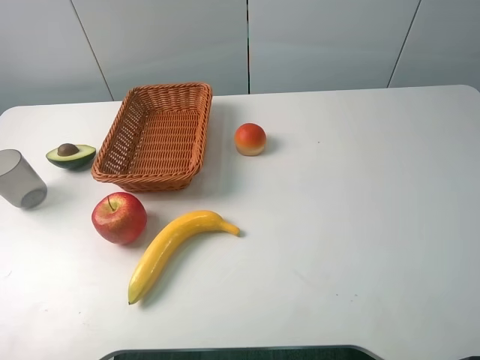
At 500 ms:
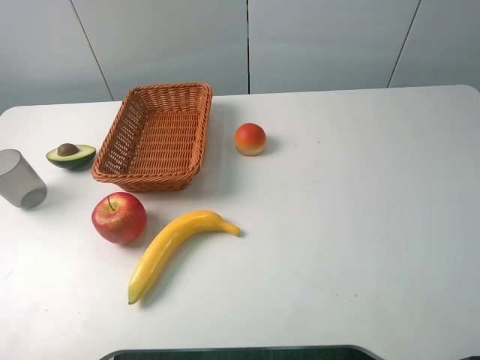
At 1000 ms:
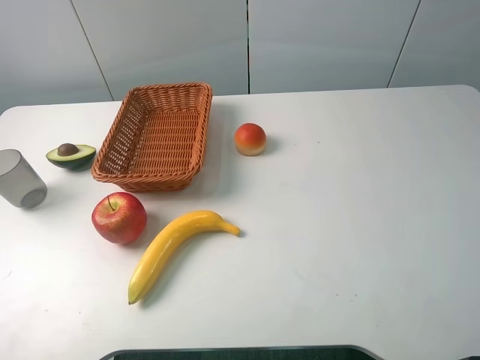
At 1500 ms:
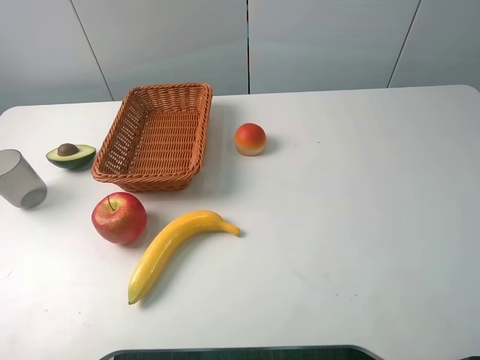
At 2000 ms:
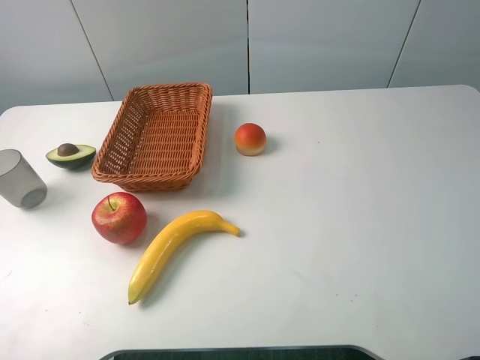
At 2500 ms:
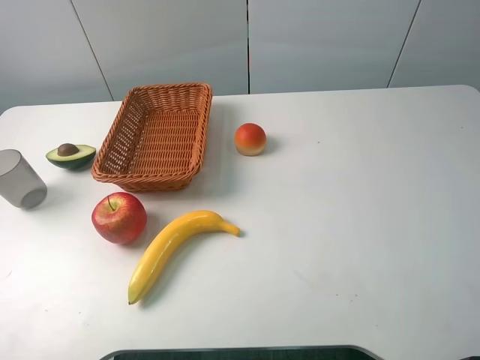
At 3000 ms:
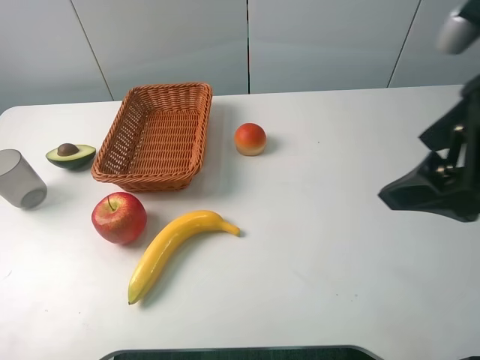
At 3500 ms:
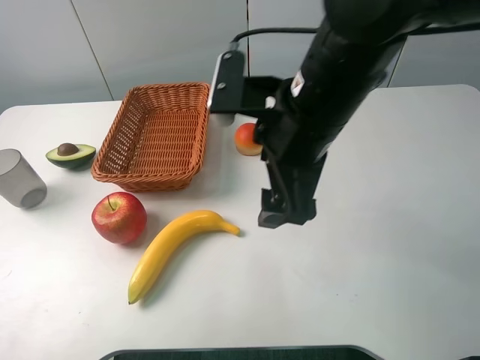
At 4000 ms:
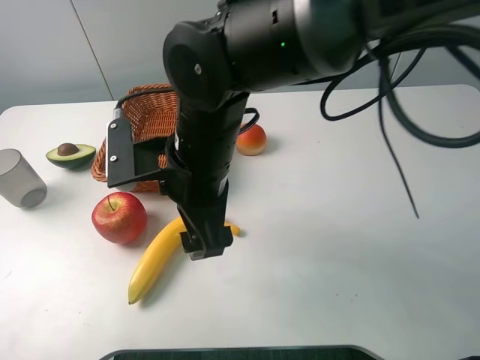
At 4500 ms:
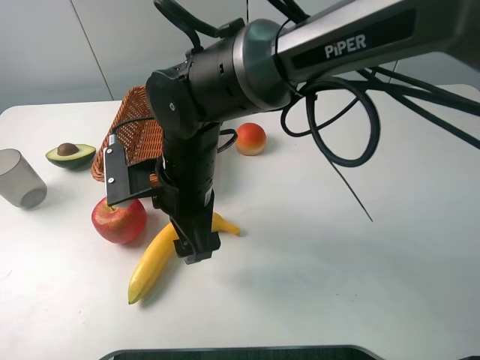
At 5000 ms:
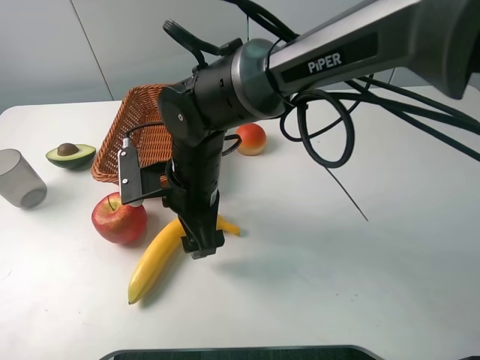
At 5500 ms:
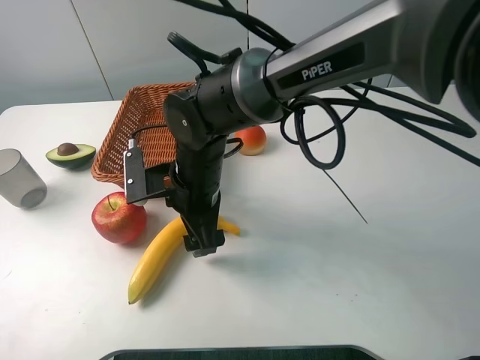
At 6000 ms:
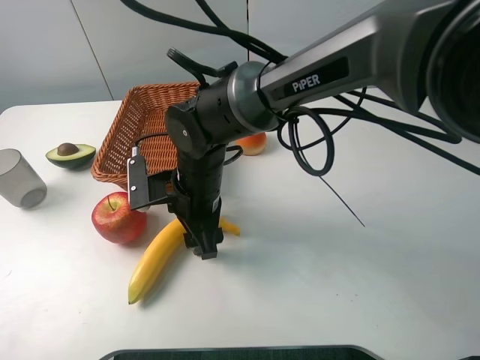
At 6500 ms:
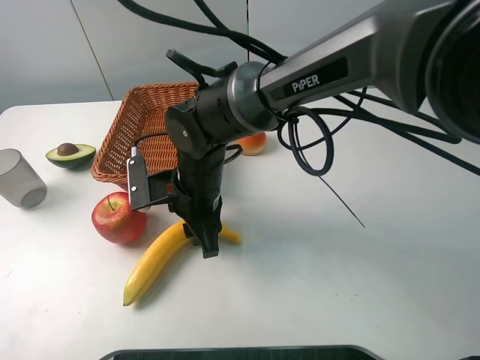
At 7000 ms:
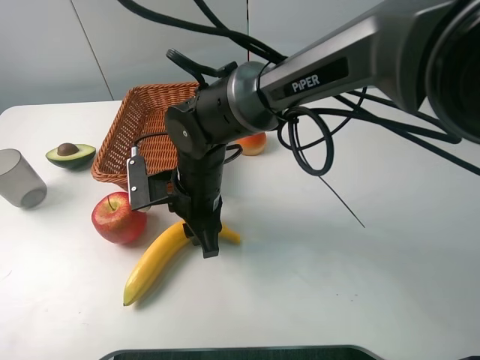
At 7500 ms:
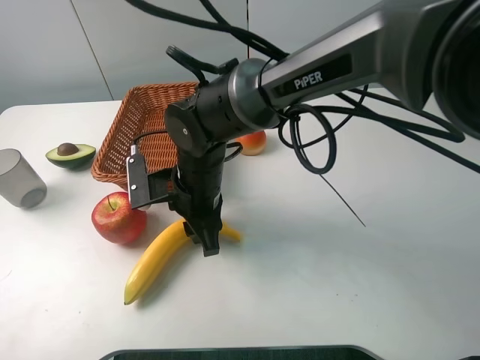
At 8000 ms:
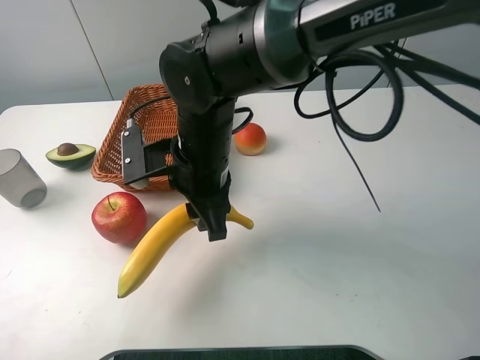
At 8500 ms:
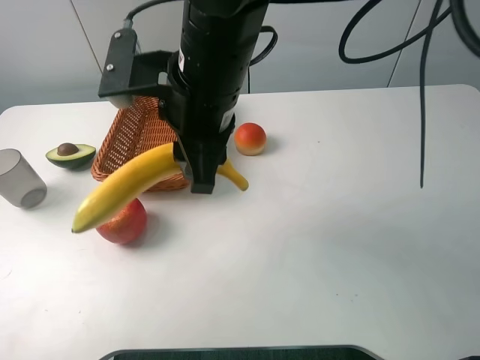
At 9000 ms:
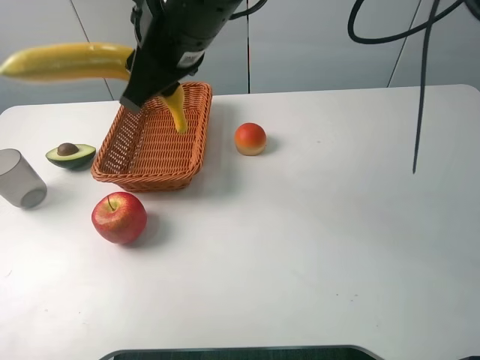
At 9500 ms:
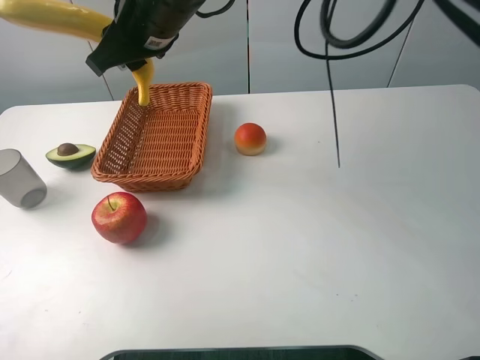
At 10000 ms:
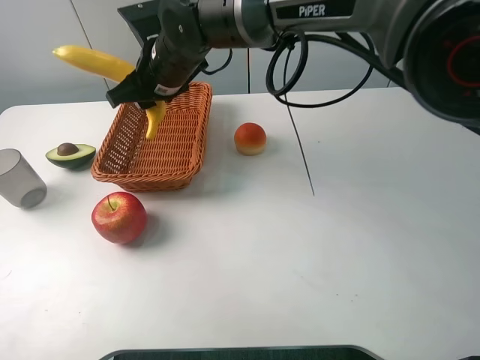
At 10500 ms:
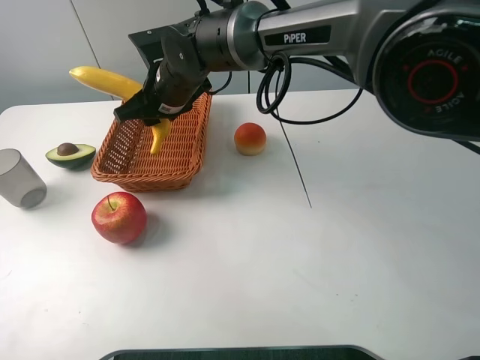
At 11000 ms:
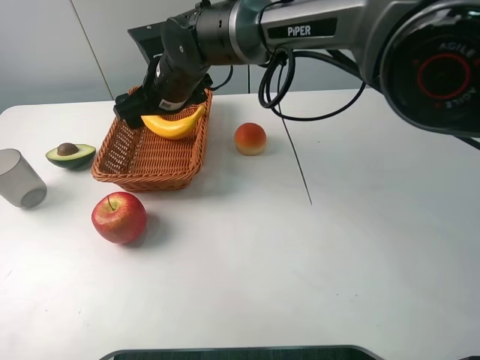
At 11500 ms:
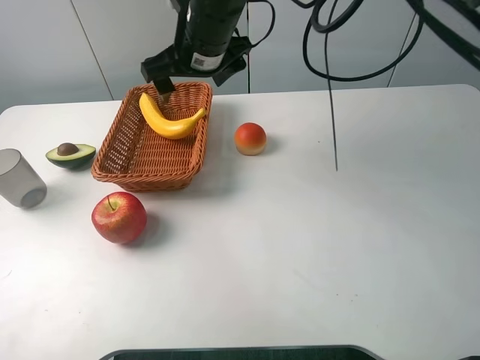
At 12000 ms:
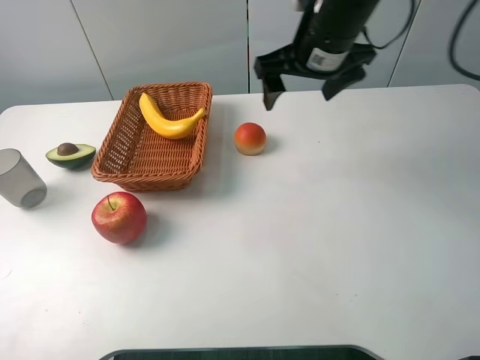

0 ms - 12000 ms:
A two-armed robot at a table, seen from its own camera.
0 ms - 2000 ms: Both grippers stay about where they are.
2000 ms - 4000 ms: The right gripper is displaced to the left and forward by approximately 40 cm.
4000 ms - 6000 ms: The right gripper goes roughly 10 cm downward, and closes up.
6000 ms - 8000 ms: The right gripper moves upward, about 5 cm.
8000 ms - 10000 ms: The right gripper heads forward, covering roughly 15 cm.
10000 ms - 12000 ms: The right gripper goes approximately 20 cm to the right, and opens up.

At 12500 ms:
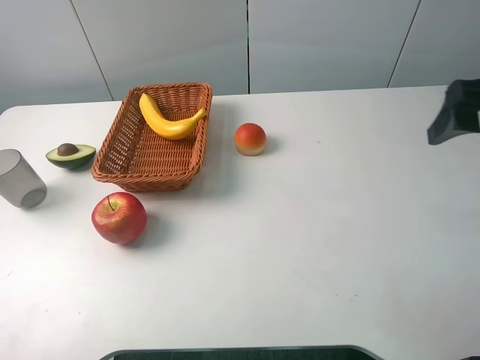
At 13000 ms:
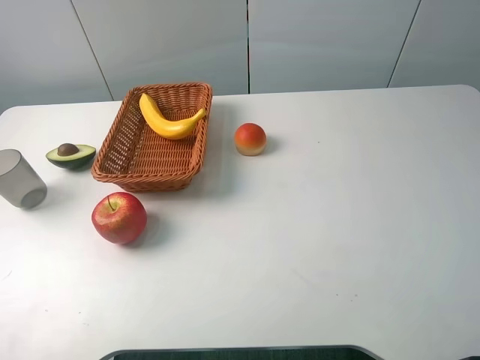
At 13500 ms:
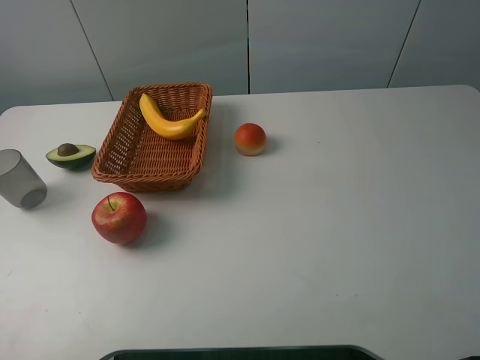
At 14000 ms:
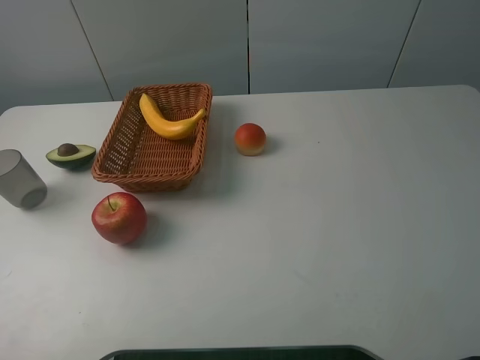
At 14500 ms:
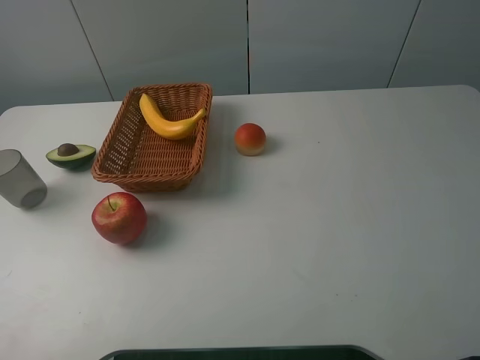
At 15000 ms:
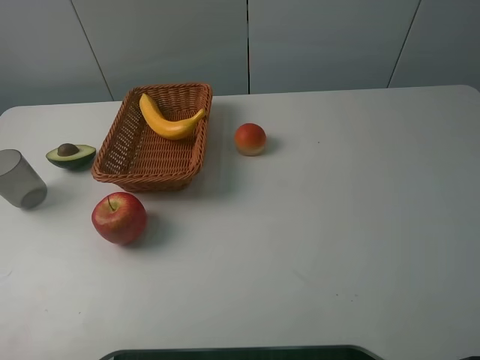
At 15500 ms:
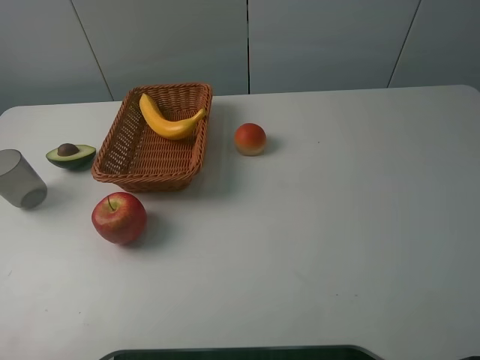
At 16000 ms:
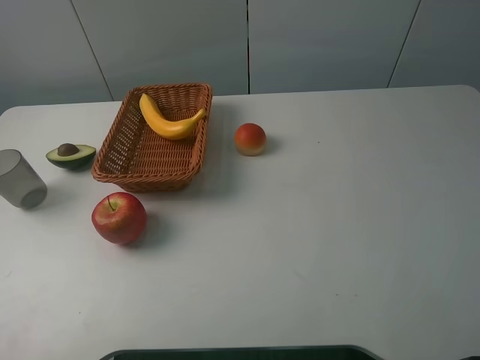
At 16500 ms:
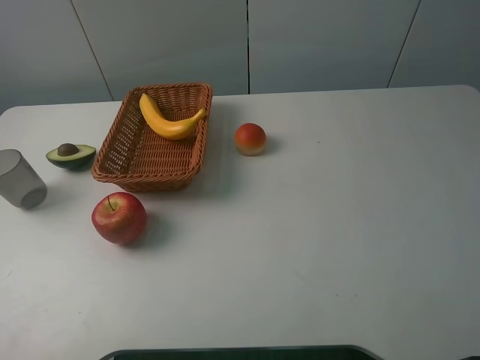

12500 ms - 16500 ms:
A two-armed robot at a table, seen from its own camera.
12500 ms - 14500 ms: The right gripper is displaced backward by some 20 cm.
14500 ms - 16500 ms: Both grippers stay put.
